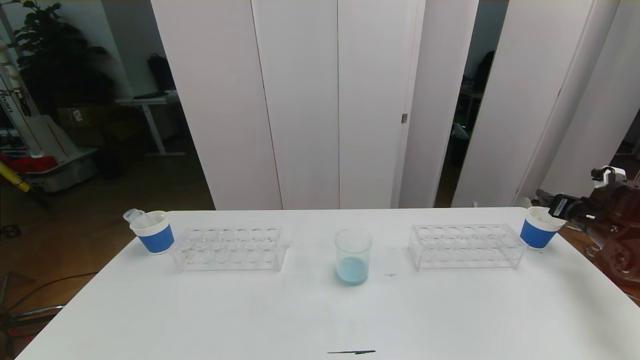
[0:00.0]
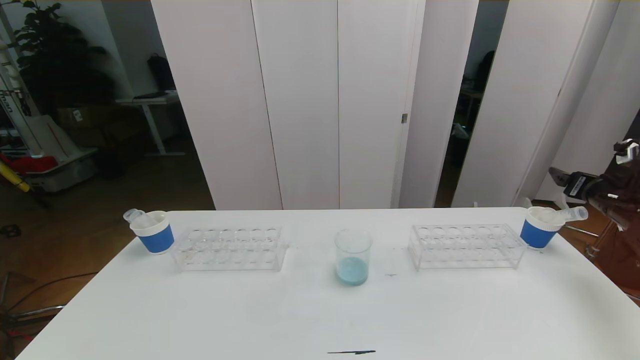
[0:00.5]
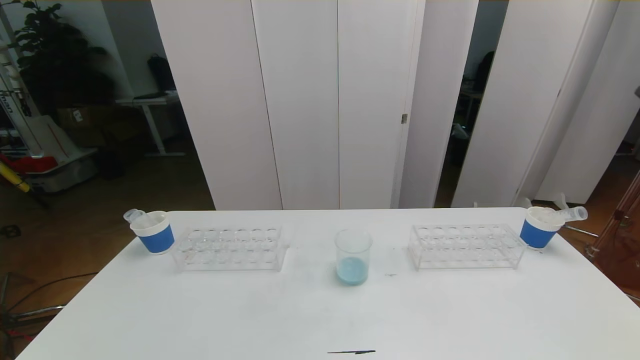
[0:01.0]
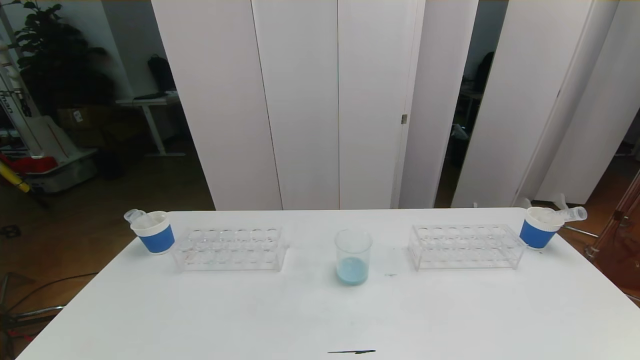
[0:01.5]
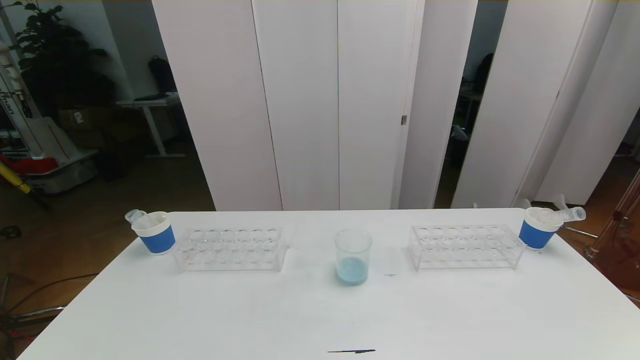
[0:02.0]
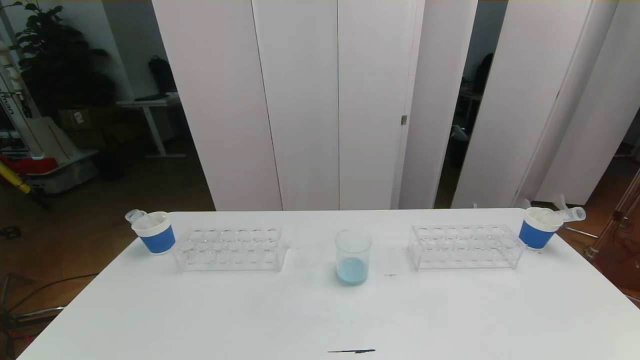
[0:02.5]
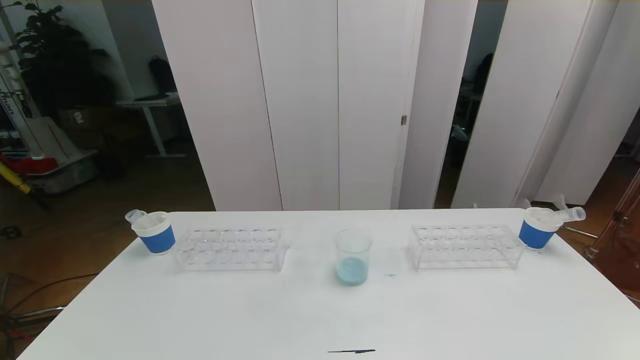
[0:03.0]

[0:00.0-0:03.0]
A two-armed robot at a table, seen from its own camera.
Task of the whole recording: pick up the test tube with red pigment the test tube with blue pigment and the test tube with white pigment by grippers and pour them into the beaker.
Step, 0:00.0 to 0:03.0: Pour the white reagent into the graduated cylinder and place the test tube into the paper cup.
0:00.0 to 0:01.5: The right gripper heads backward and upward, covering some 40 cm.
